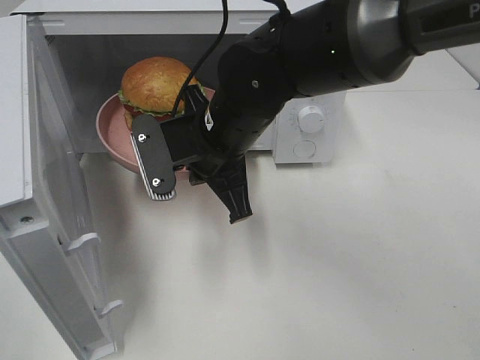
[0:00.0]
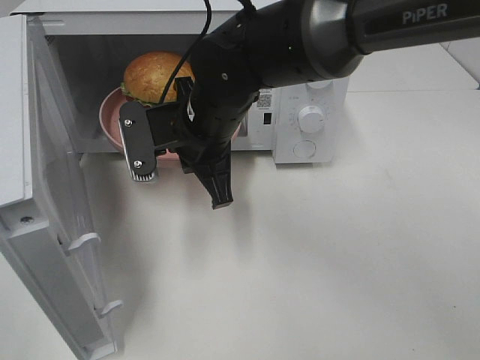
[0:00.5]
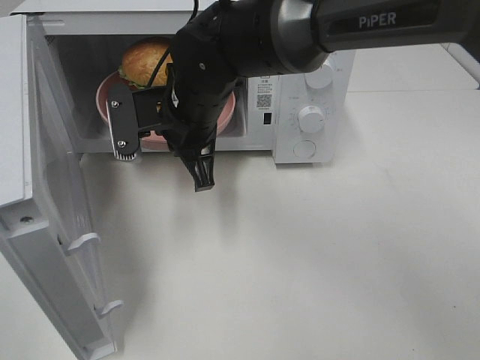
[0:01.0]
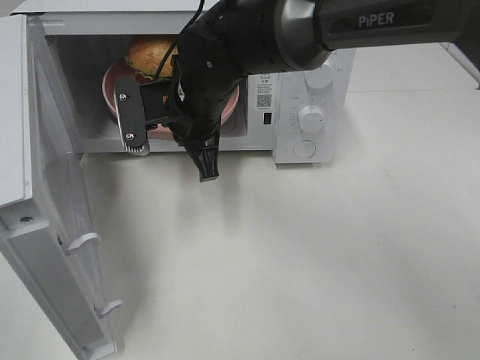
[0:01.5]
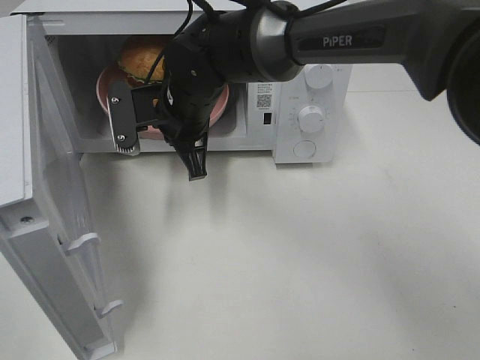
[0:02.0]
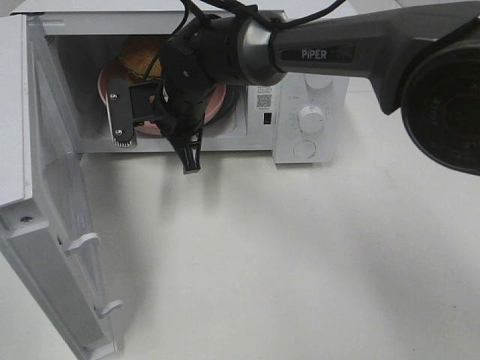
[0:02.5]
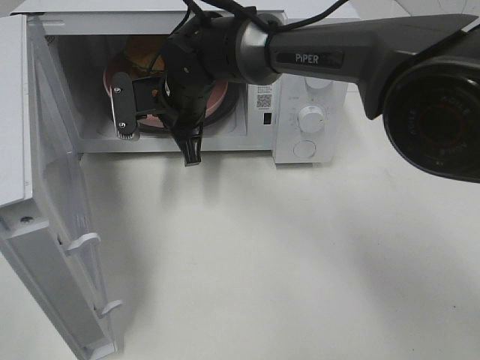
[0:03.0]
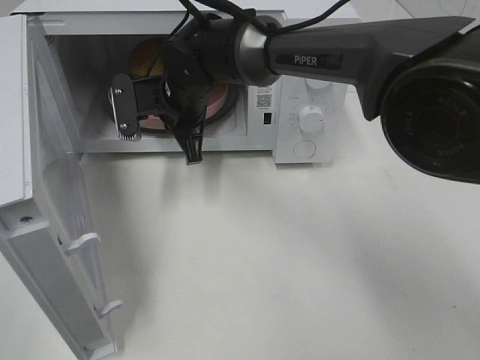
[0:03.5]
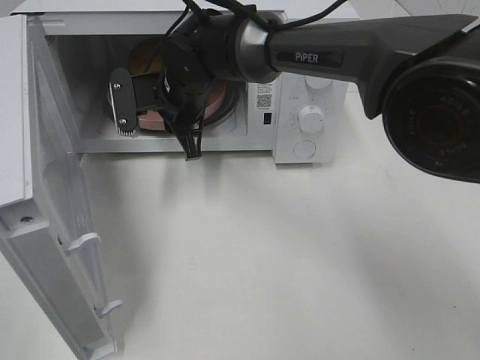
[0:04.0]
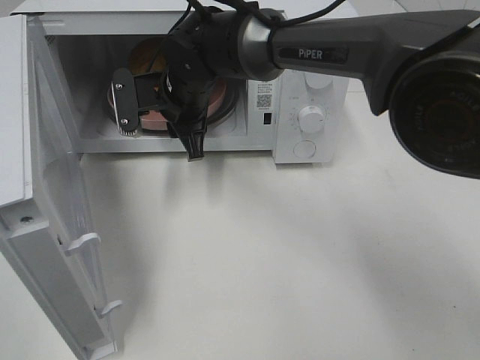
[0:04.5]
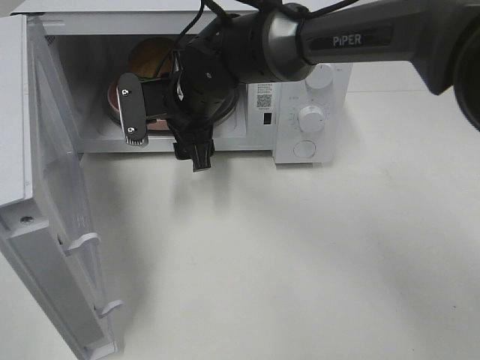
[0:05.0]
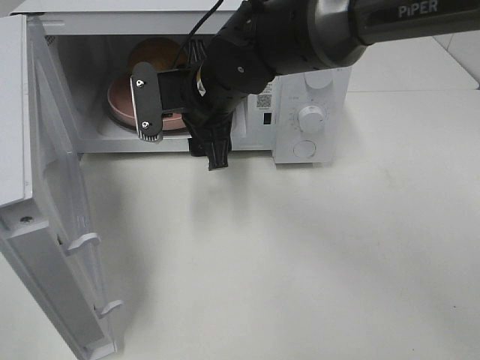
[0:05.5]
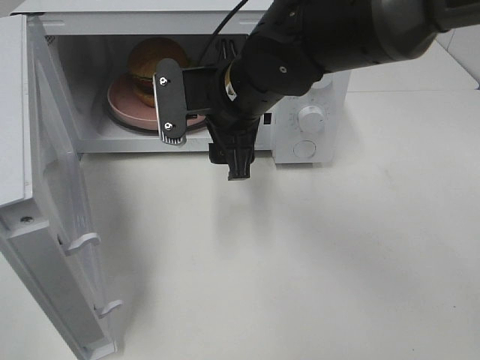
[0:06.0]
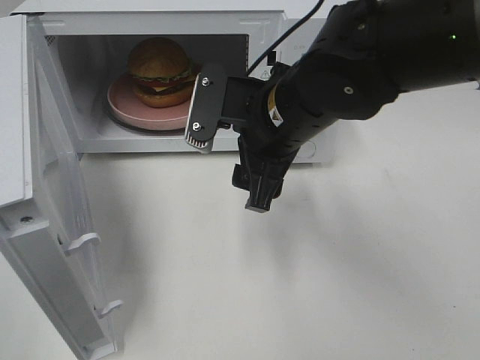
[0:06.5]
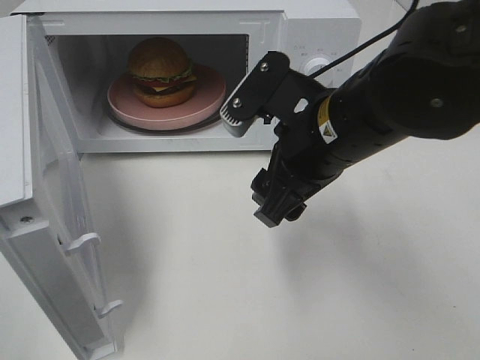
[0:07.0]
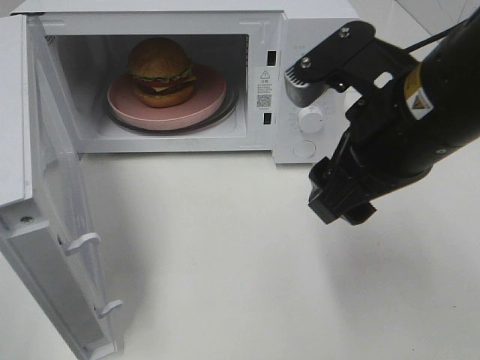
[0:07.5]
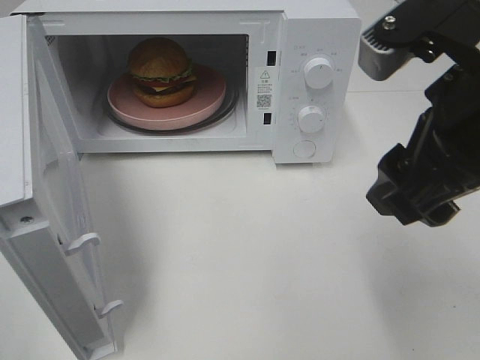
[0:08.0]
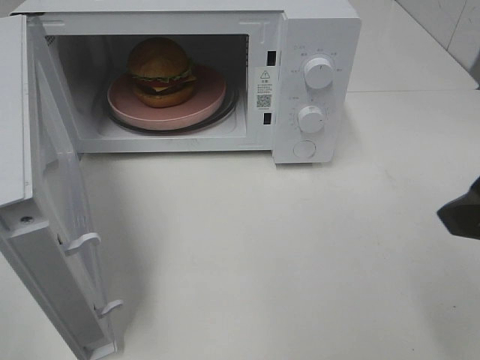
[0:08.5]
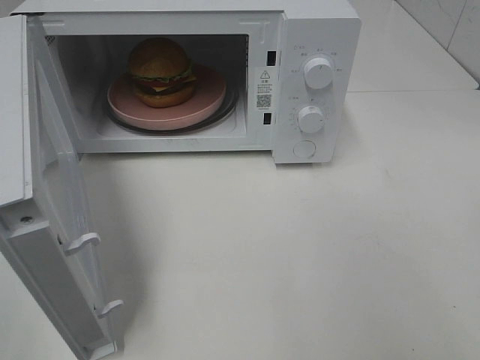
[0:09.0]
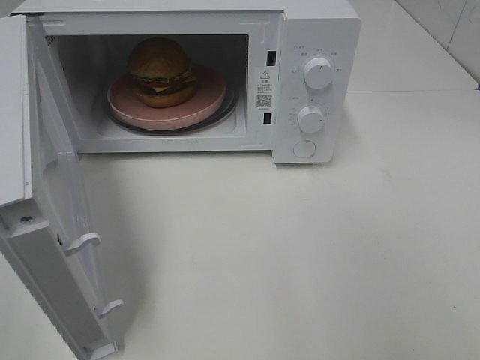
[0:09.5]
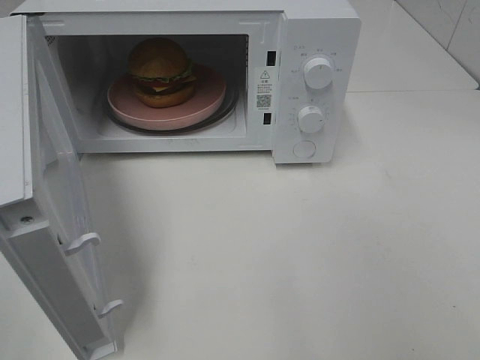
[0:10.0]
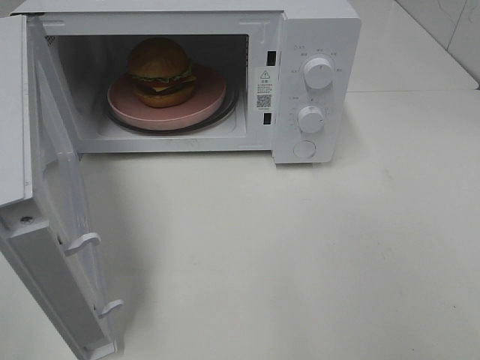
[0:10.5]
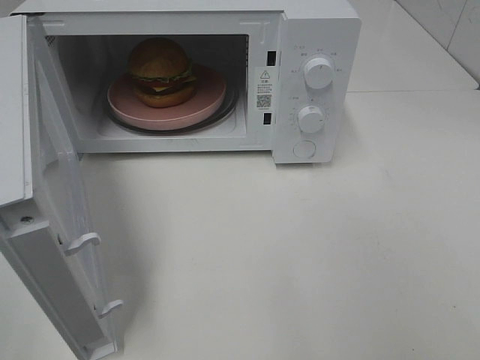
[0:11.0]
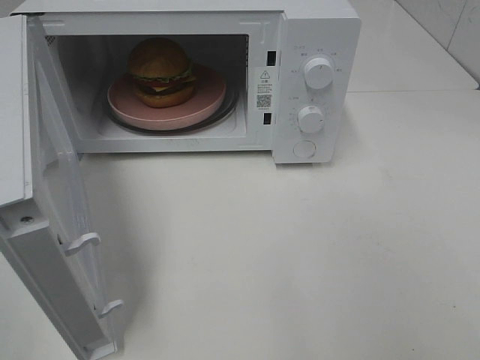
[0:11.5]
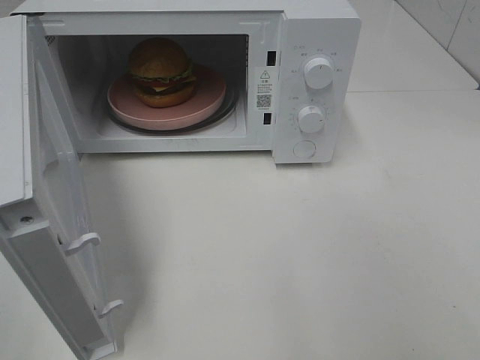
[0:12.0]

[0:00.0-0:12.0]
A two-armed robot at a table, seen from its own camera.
Task of the whole recording: Heat the burger.
Step, 0:00.0 to 0:03.5: Right hand: place the plate in the microwave.
0:00.0 to 0:02.0: The right gripper goes about 5 cm forward.
0:02.0 to 0:04.0: The right gripper opens.
0:04.0 to 0:06.0: The right gripper goes some 10 cm backward and to the right, and opens its fingers.
0:06.0 to 0:08.0: The right gripper goes roughly 25 cm backward, to the right and upward.
0:08.0 to 0:10.0: The right gripper moves backward and to the right, some 20 cm.
0:10.0 to 0:12.0: Both grippers stay about where they are.

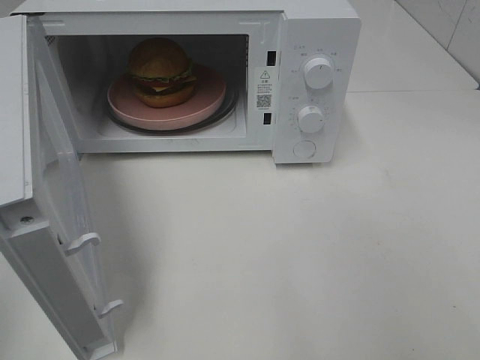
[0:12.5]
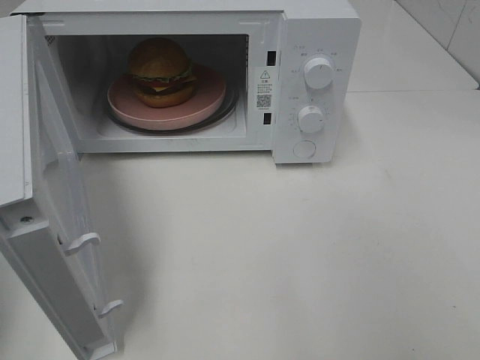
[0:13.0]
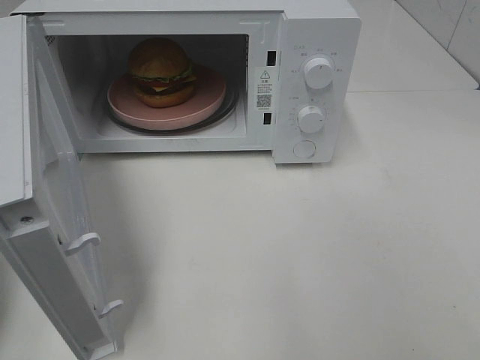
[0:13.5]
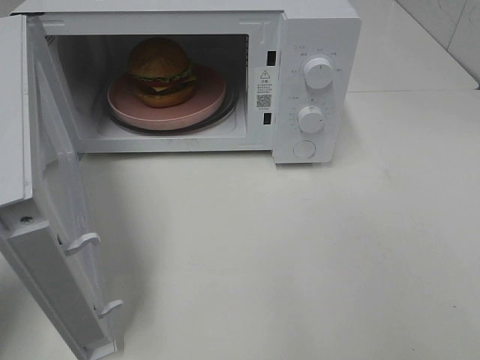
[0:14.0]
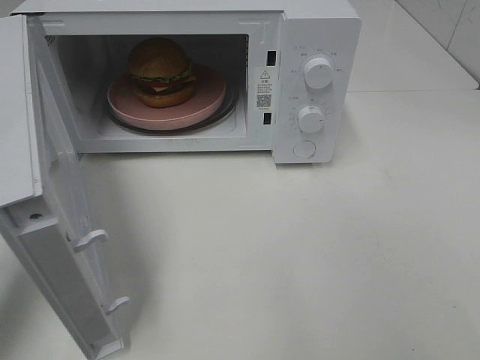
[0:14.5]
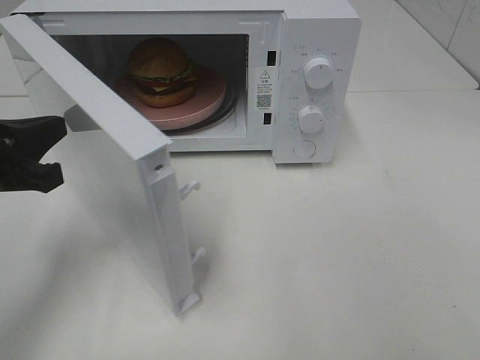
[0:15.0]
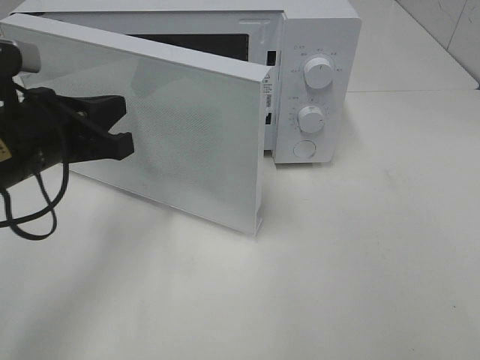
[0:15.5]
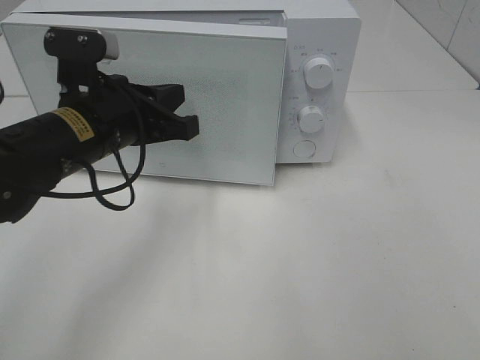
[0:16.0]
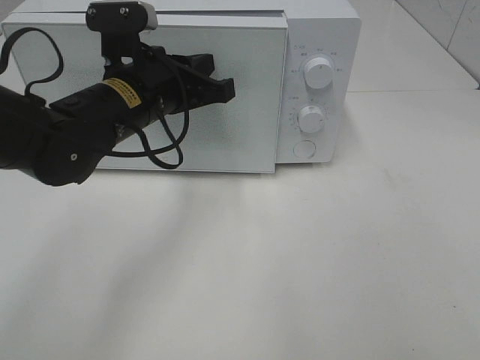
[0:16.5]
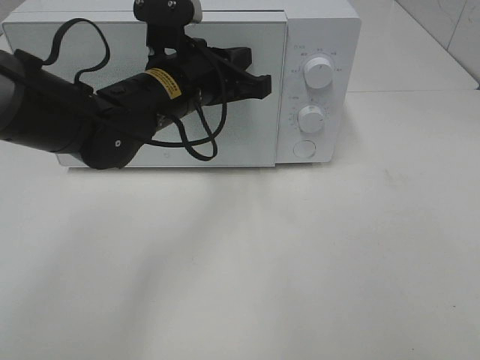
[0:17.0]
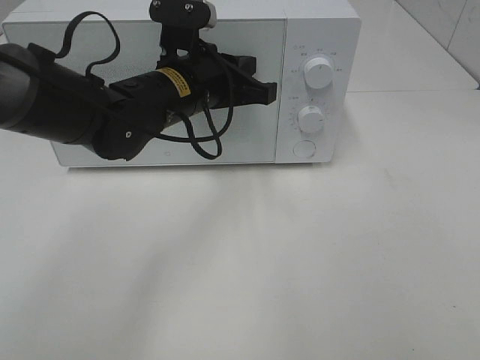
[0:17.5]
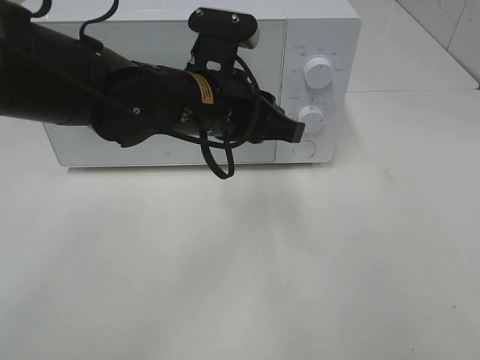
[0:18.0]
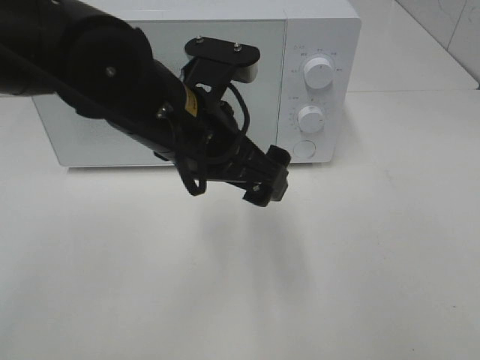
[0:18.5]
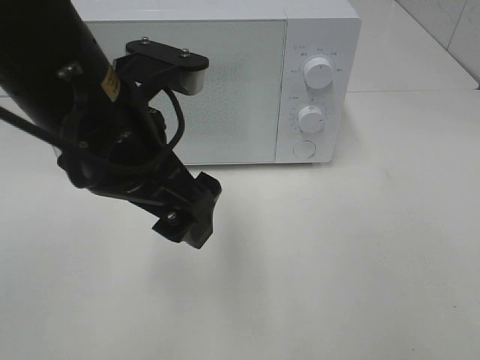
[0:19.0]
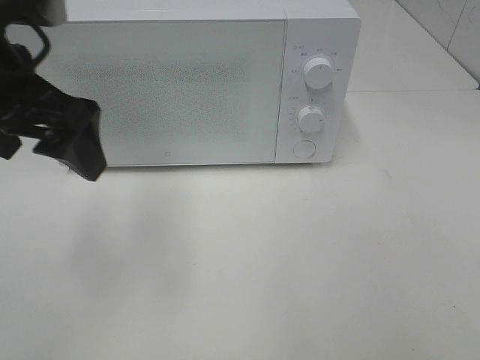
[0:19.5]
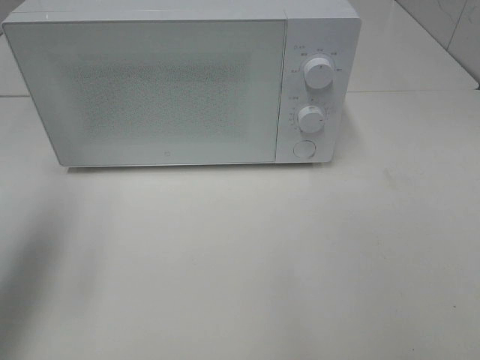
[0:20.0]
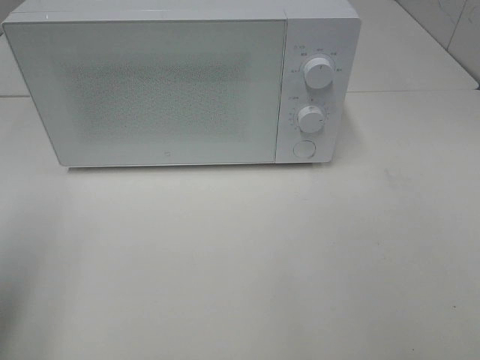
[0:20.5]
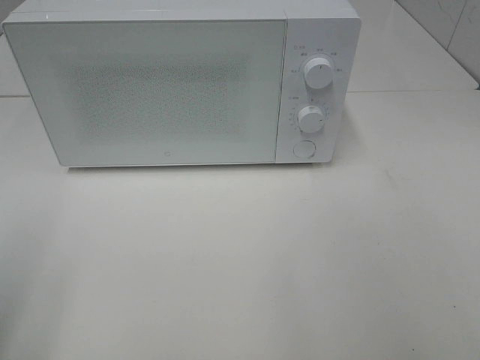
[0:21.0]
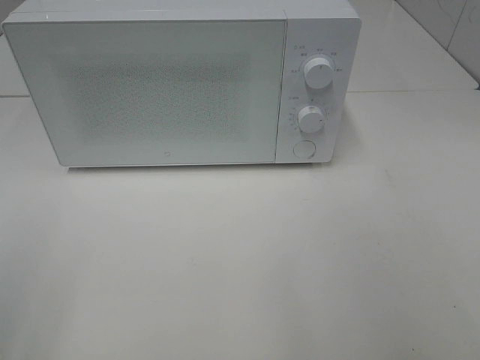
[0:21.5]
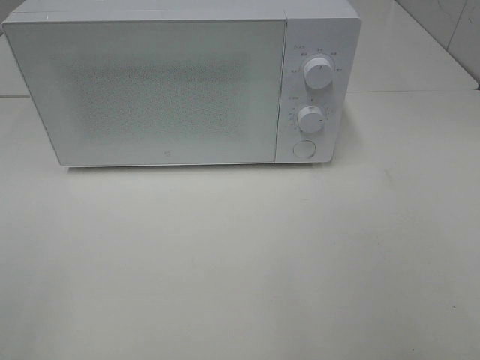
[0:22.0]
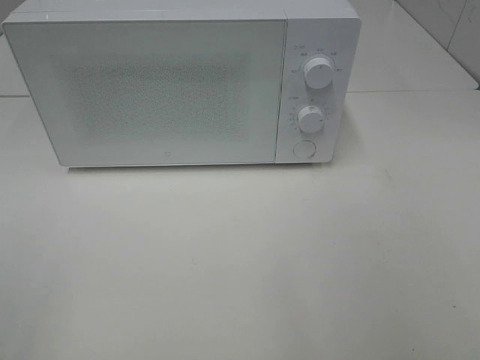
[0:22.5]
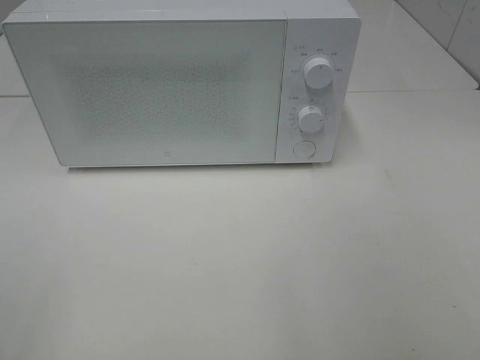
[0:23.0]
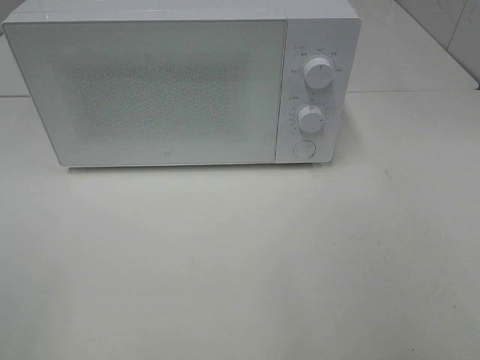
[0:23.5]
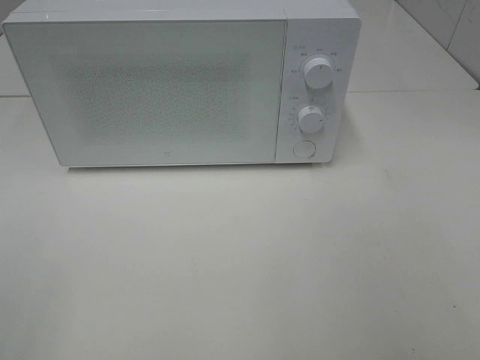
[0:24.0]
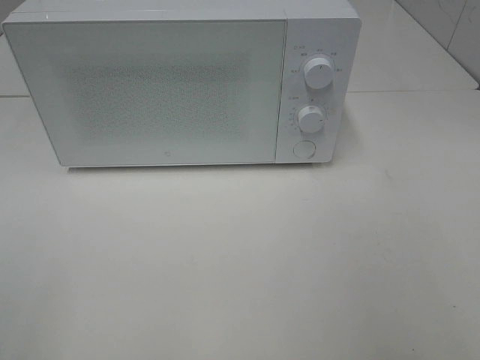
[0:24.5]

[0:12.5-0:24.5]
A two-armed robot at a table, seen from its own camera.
Task of the whole recording: Heat the burger.
Step, 0:12.5 to 0:17.5: Left hand: close the microwave door.
0:12.5 to 0:14.5: The left gripper goes some 20 cm forward and downward.
0:14.5 to 0:16.5: The left gripper is displaced to the right and forward by about 20 cm.
0:16.5 to 0:18.5: The left gripper goes approximately 10 cm backward and to the right, and opens its fingers.
0:18.5 to 0:20.5: The left gripper travels to the left and backward by roughly 30 cm.

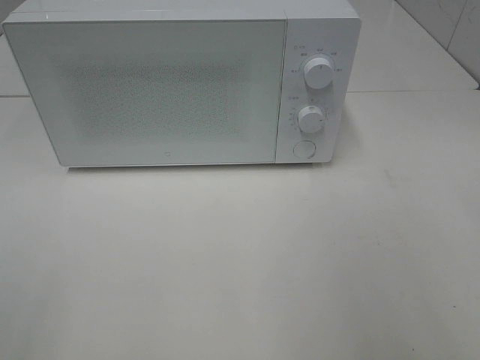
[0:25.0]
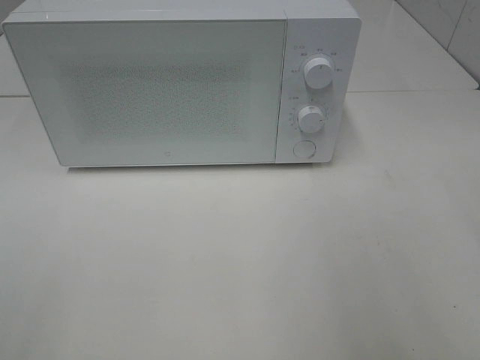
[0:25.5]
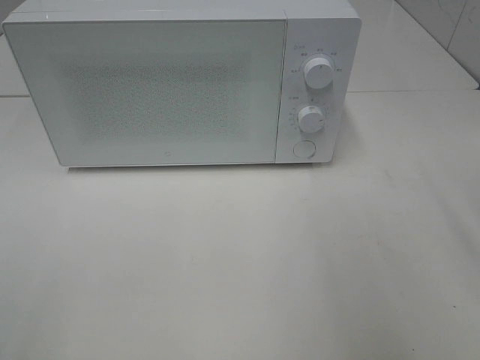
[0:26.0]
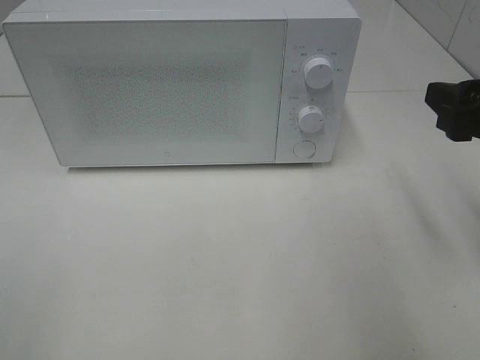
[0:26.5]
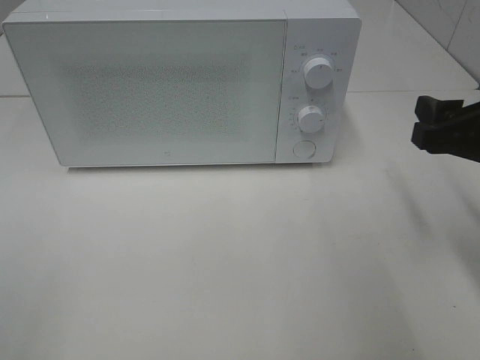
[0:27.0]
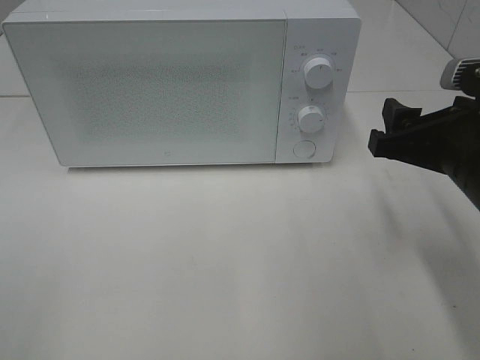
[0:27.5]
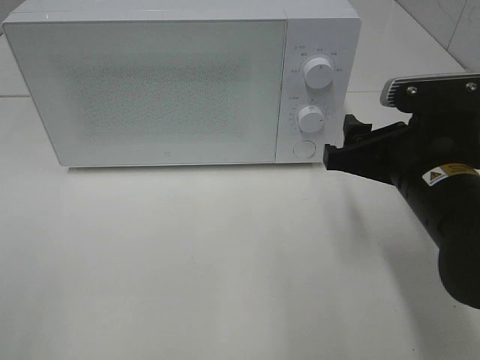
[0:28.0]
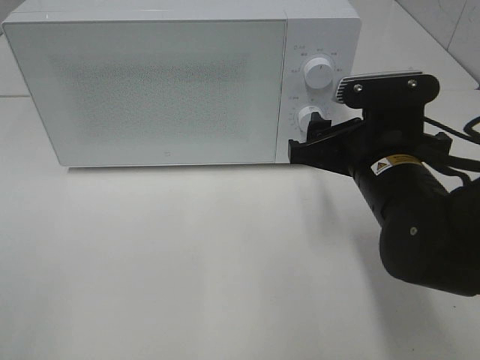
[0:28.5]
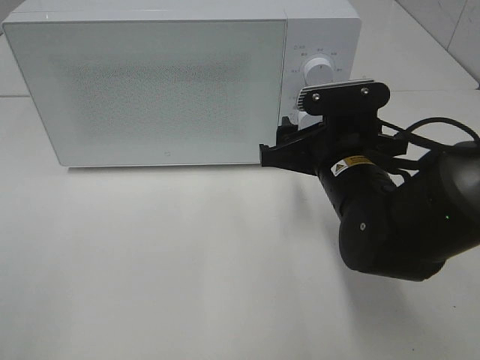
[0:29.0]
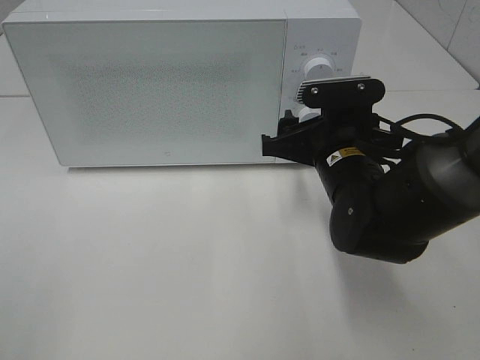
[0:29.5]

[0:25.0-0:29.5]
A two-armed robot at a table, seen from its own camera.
Task of the whole recording: Heat the burger.
0:25.0 to 0:27.0: The right gripper moves forward and downward, some 20 cm.
0:27.0 to 0:29.5: The right gripper goes some 15 cm to the left, downward and forward.
